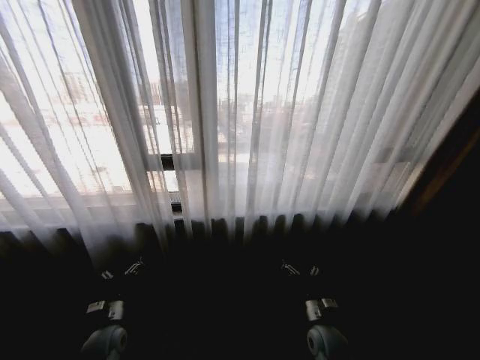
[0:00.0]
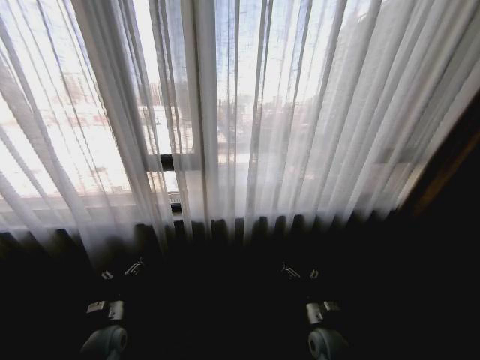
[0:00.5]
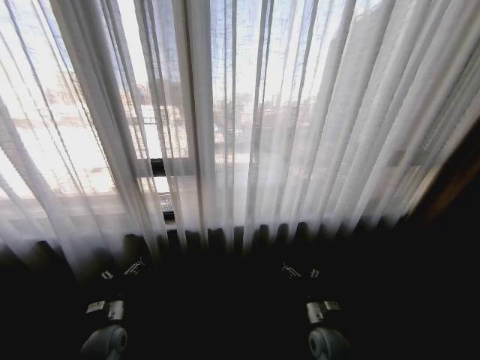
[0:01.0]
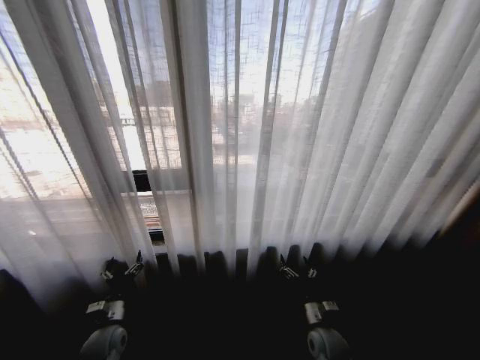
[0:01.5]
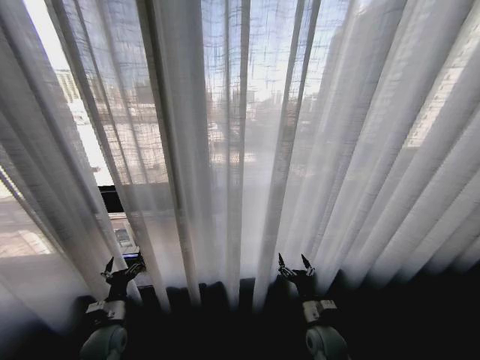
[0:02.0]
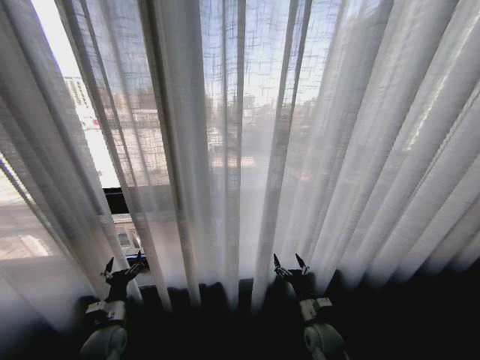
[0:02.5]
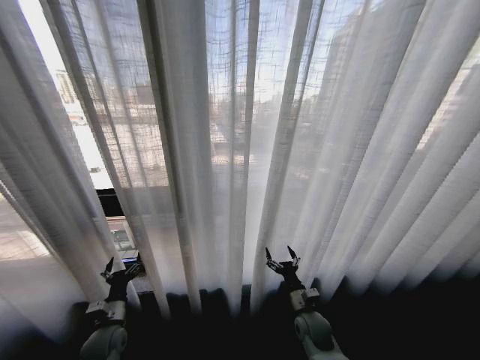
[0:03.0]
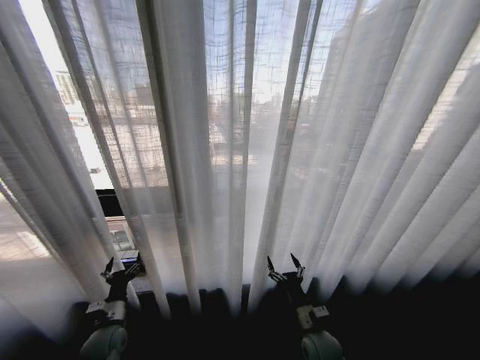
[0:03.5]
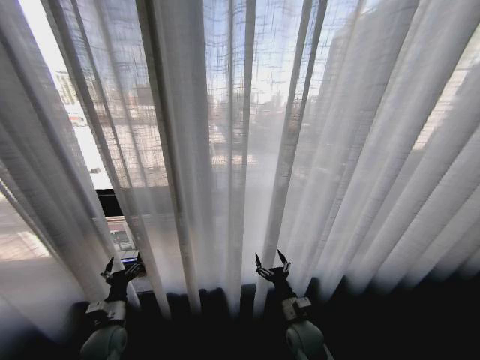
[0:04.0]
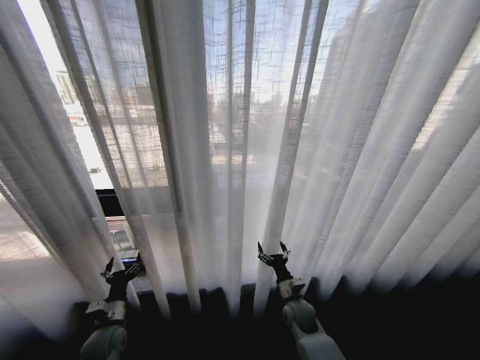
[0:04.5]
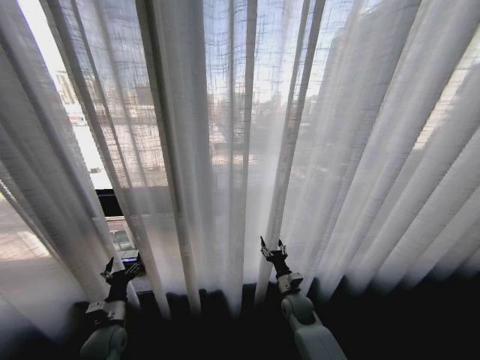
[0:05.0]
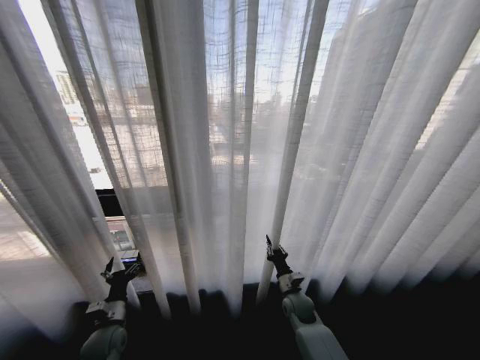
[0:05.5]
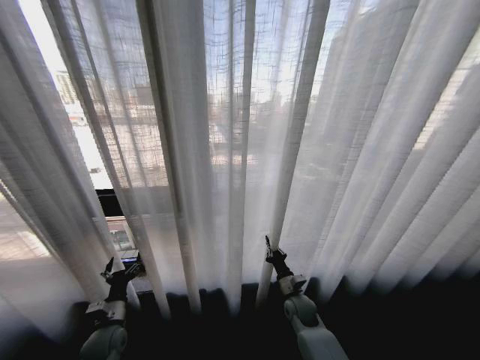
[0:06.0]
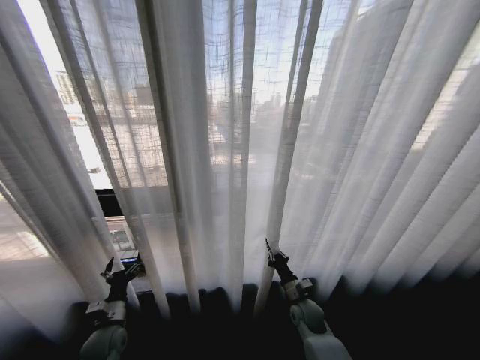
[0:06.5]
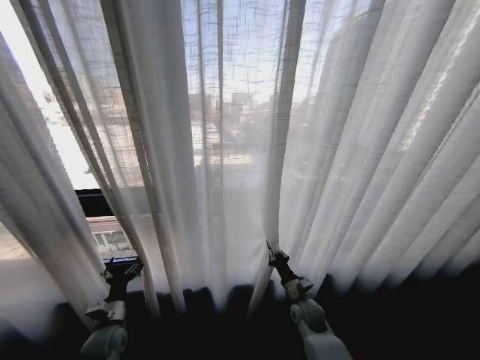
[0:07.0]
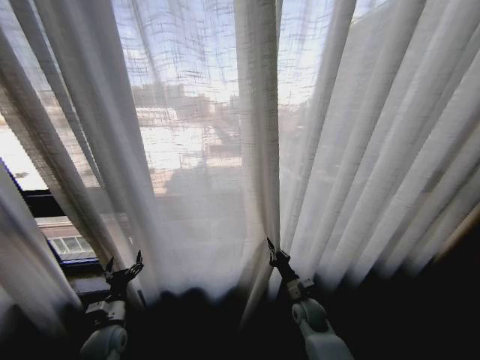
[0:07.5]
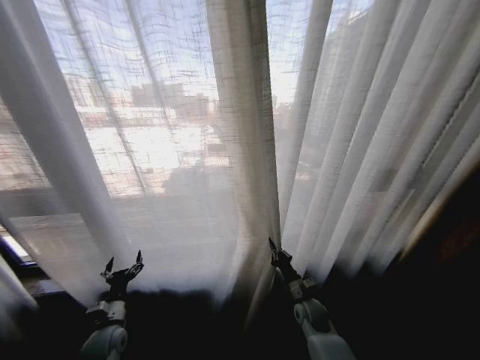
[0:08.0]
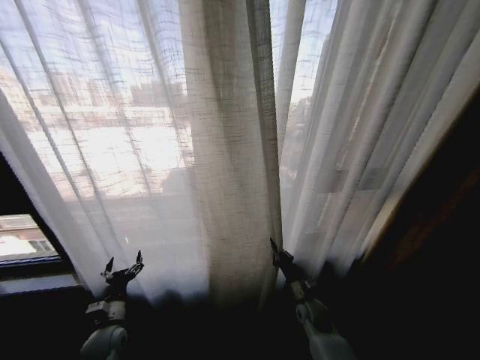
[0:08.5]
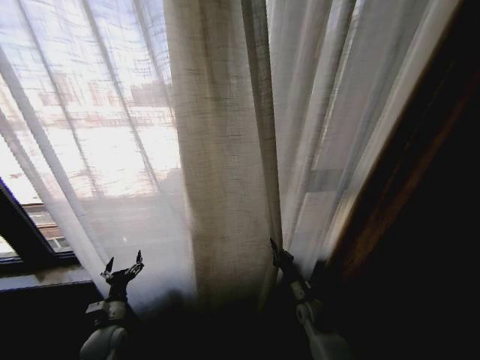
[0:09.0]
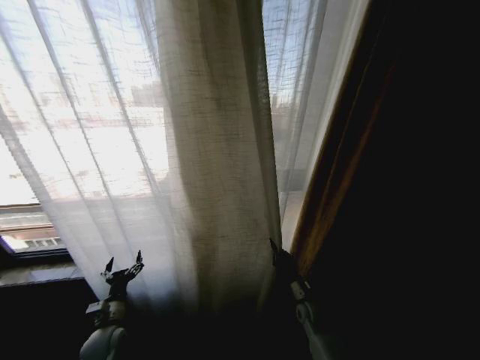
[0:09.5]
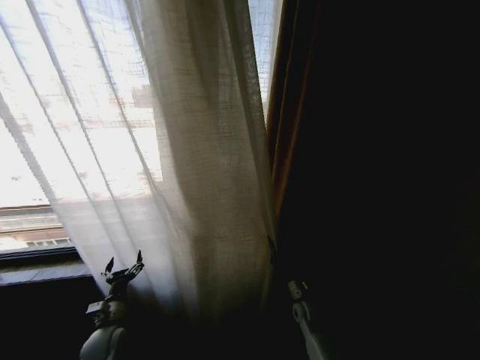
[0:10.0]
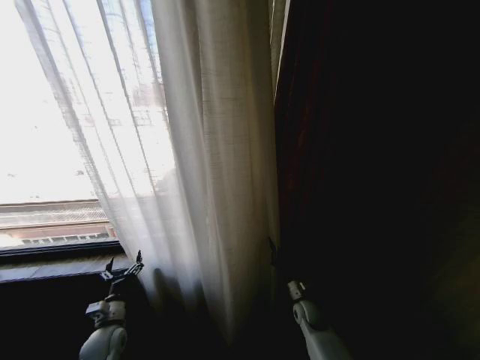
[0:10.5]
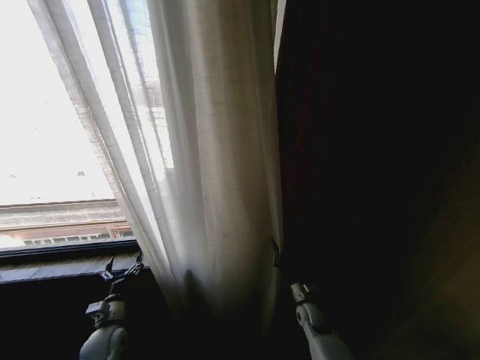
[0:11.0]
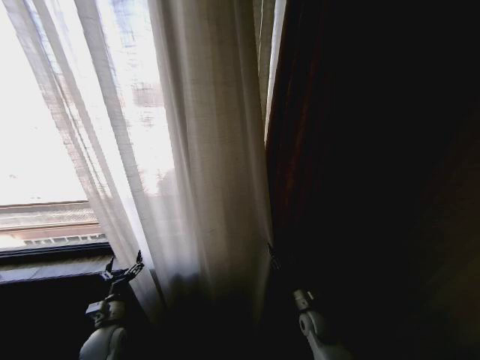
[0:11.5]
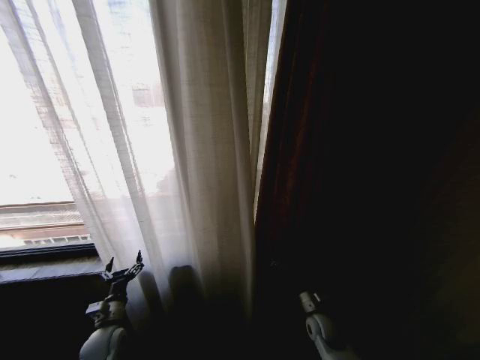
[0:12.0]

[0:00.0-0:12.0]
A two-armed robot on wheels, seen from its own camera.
Task of the whole recording: Open the curtains by pulling them apart, changing their state from closed to fully open.
0:02.0 to 0:04.0: The right gripper heads to the left, covering some 5 cm.
0:04.0 to 0:06.0: The right gripper travels forward by roughly 10 cm, and closes up.
0:10.0 to 0:12.0: The right gripper moves approximately 5 cm, and opens.

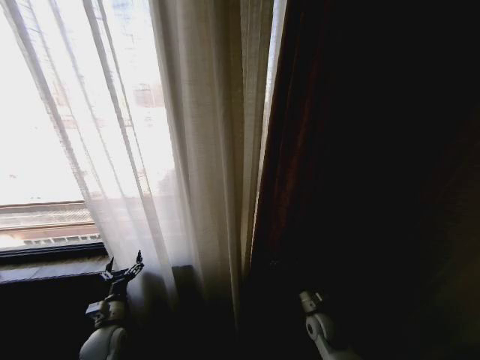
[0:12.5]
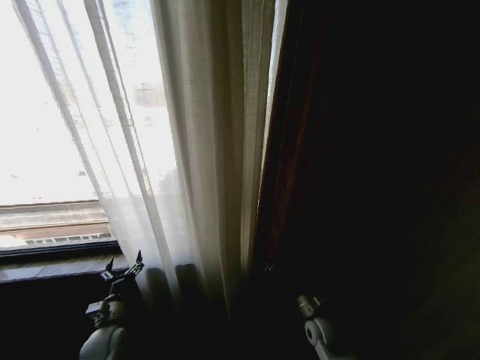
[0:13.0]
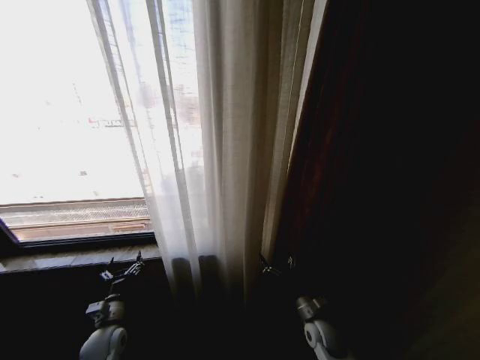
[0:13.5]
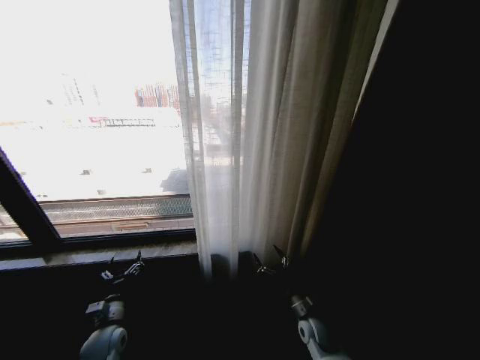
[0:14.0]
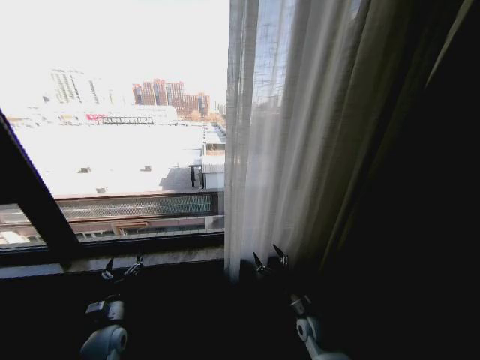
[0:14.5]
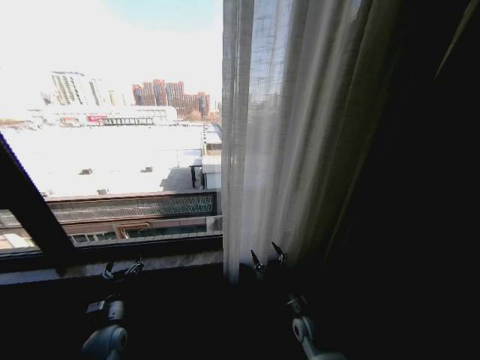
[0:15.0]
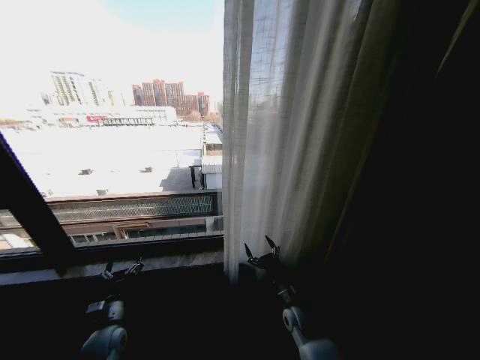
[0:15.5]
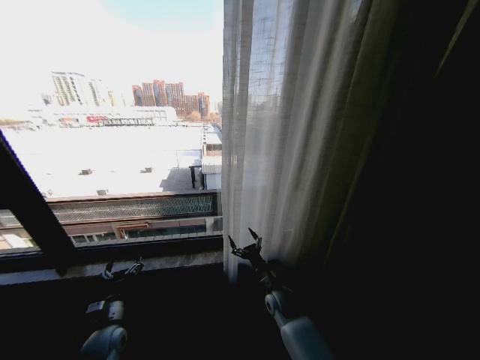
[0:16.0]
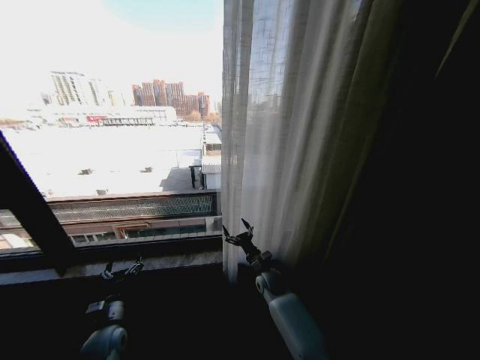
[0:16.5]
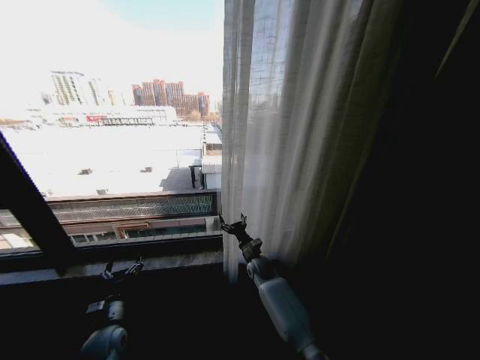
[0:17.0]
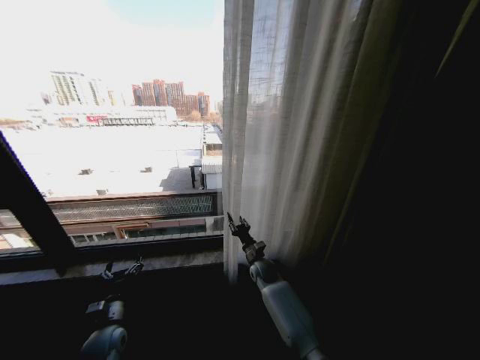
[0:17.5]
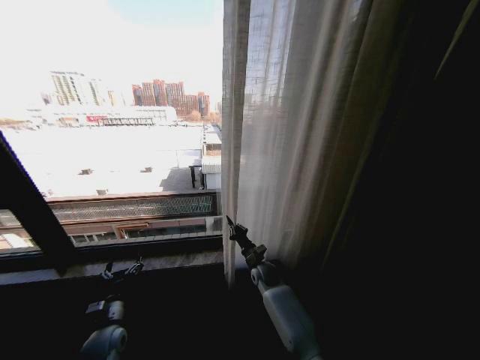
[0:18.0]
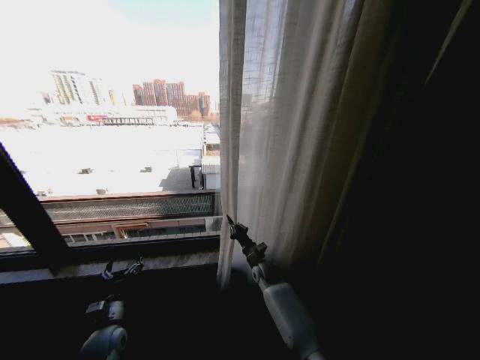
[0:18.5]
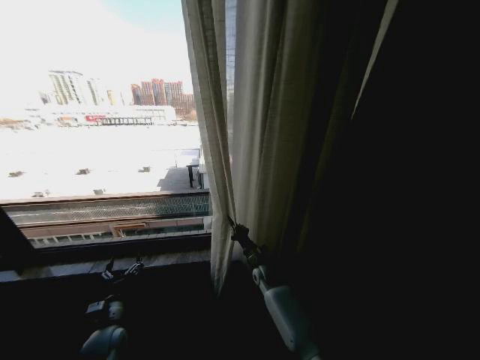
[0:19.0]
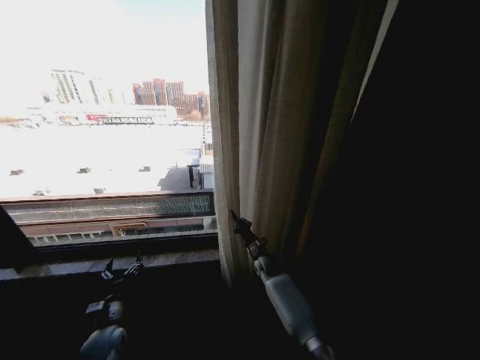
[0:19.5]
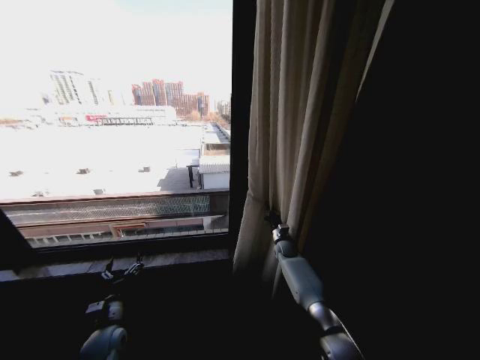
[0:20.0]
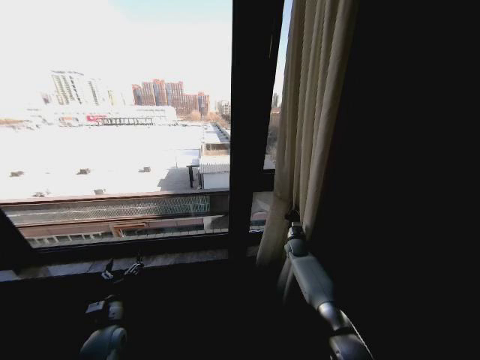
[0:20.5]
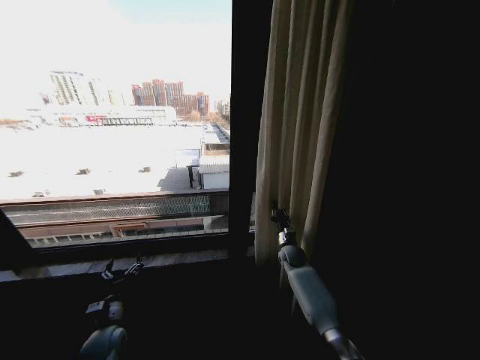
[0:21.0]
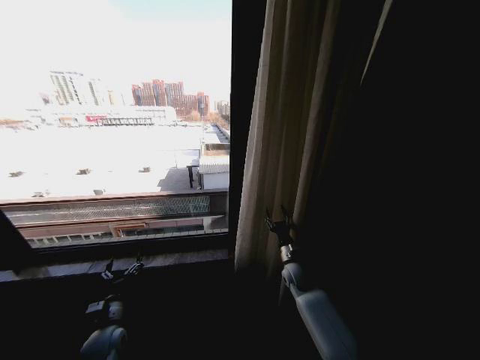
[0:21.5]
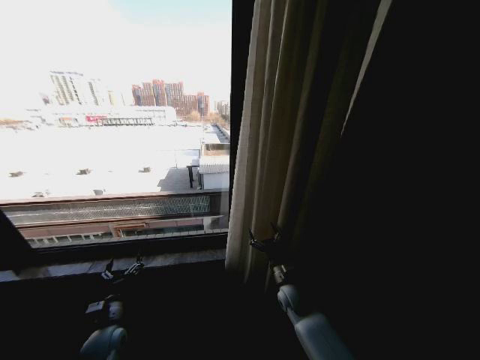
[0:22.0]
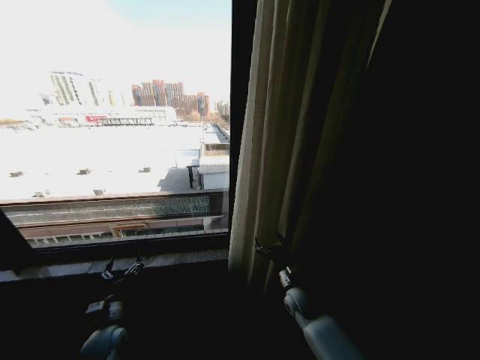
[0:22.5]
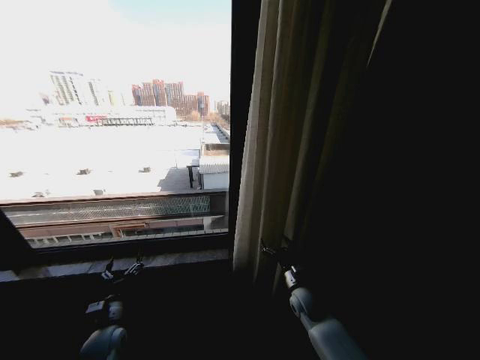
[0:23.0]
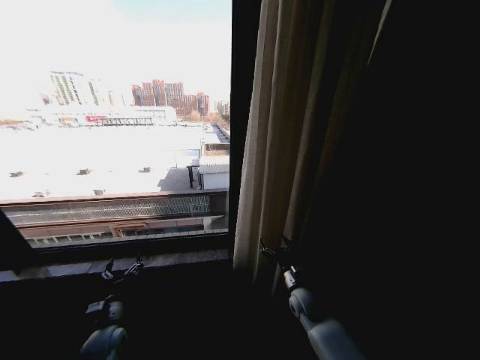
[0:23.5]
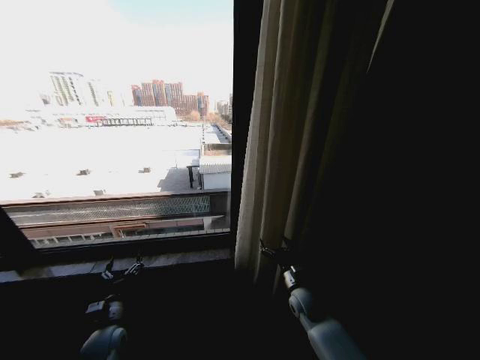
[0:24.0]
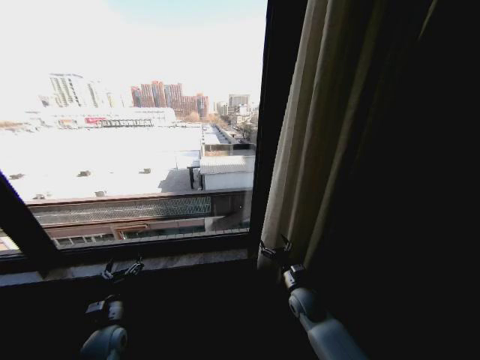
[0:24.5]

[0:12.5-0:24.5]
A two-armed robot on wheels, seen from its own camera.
Task of the whole recording: Open the curtains by pulling them apart, changing their state from closed to fully open.
0:14.5 to 0:16.5: The right gripper moves forward and to the left, some 15 cm.
0:16.5 to 0:18.5: The right gripper closes up.
0:18.5 to 0:20.5: The right gripper moves to the right and forward, roughly 20 cm.
0:20.5 to 0:22.5: The right gripper travels backward by approximately 20 cm, and opens up.
0:22.5 to 0:24.5: The grippers make only small movements.

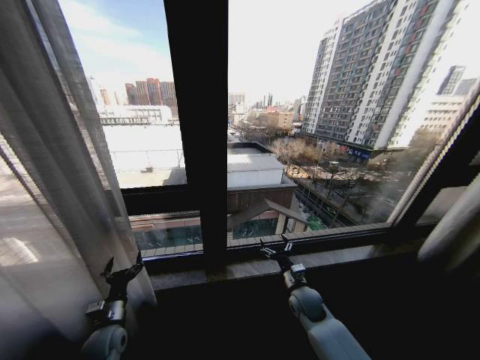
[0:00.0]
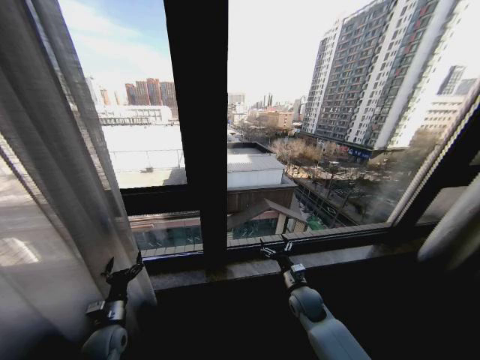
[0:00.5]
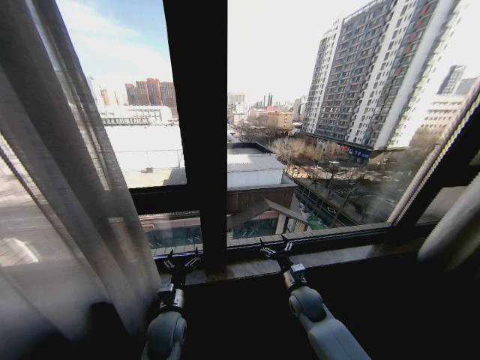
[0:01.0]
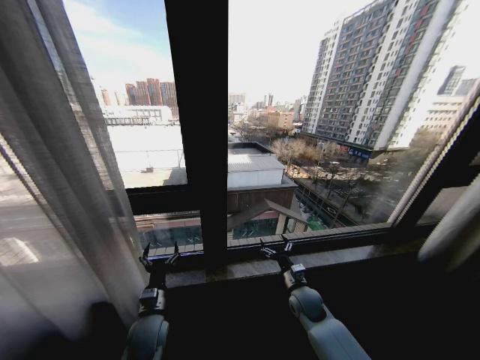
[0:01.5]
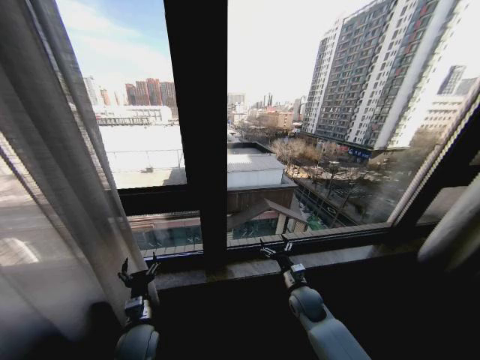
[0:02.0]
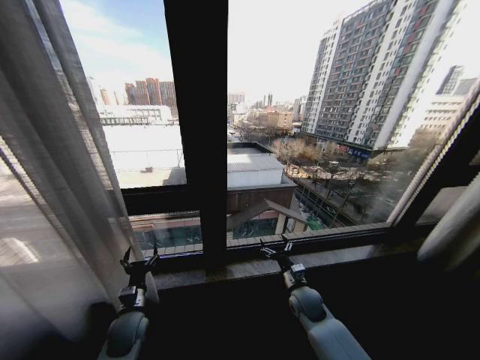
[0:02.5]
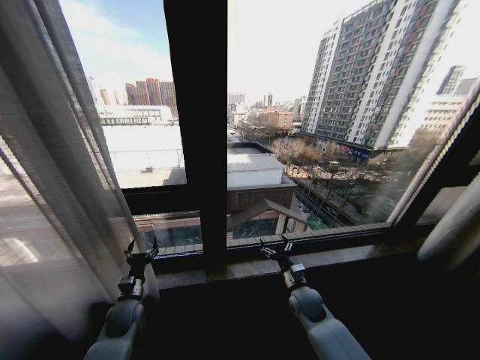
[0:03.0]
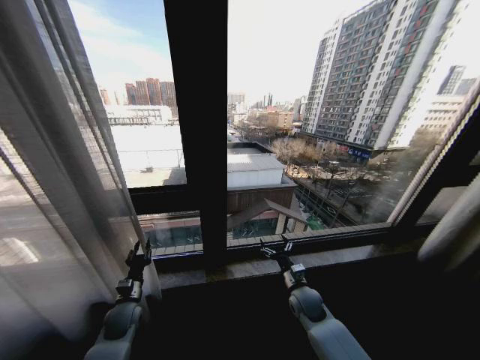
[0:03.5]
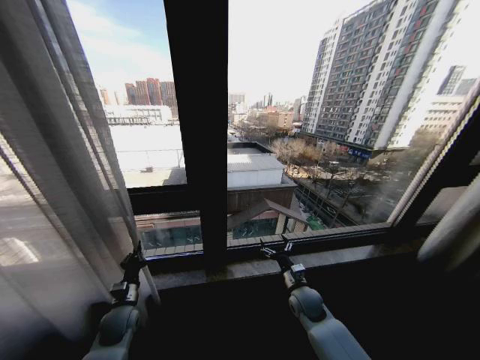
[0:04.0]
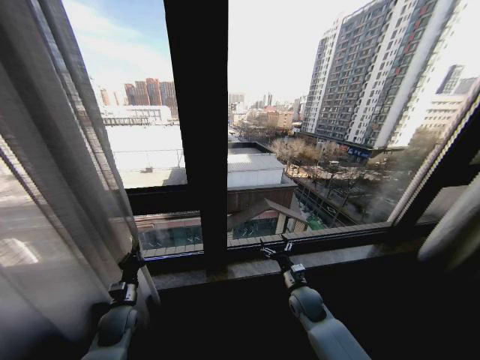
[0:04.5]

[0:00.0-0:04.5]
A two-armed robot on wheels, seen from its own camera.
Task of the whole recording: Open the curtains by pulling them apart, changing their state from closed to fully open.
0:00.0 to 0:02.0: The left gripper goes some 10 cm to the right.
0:02.0 to 0:04.5: The left gripper heads to the left and forward, covering about 10 cm, and closes up.
